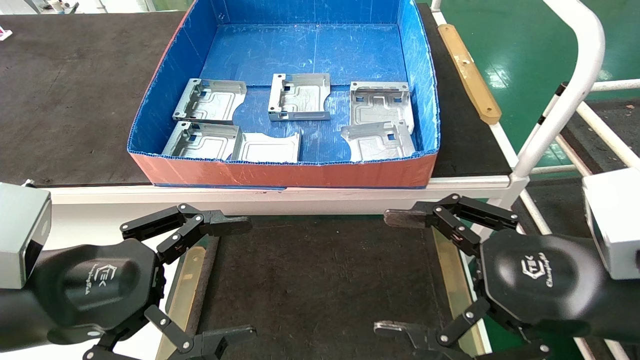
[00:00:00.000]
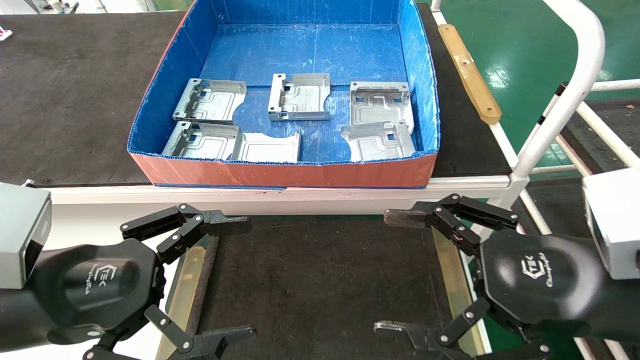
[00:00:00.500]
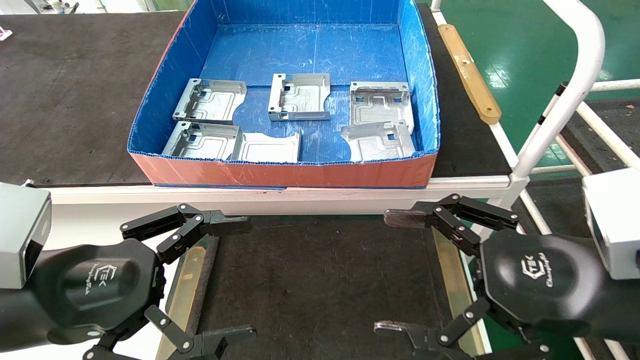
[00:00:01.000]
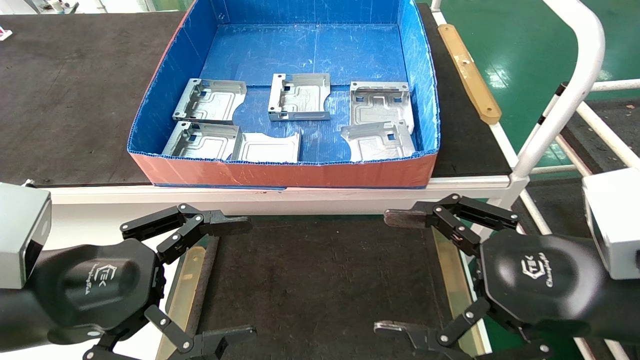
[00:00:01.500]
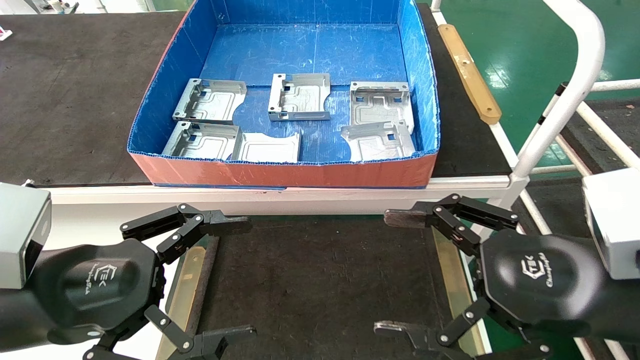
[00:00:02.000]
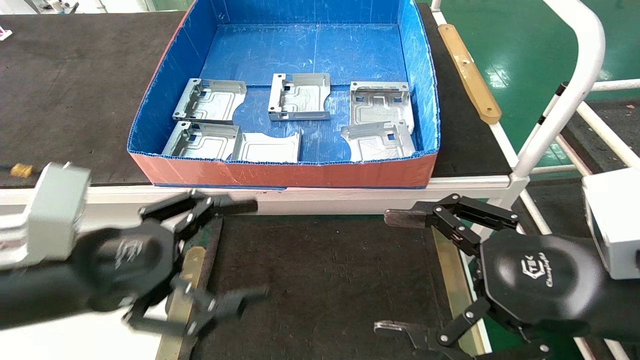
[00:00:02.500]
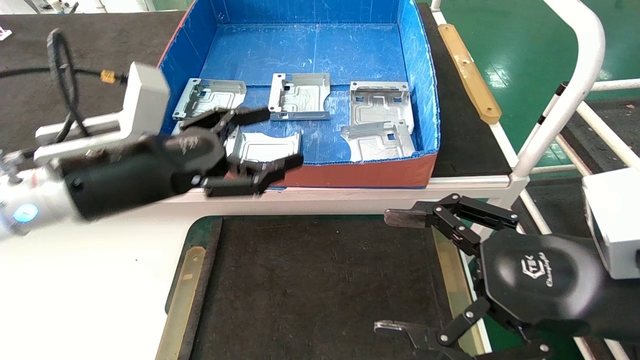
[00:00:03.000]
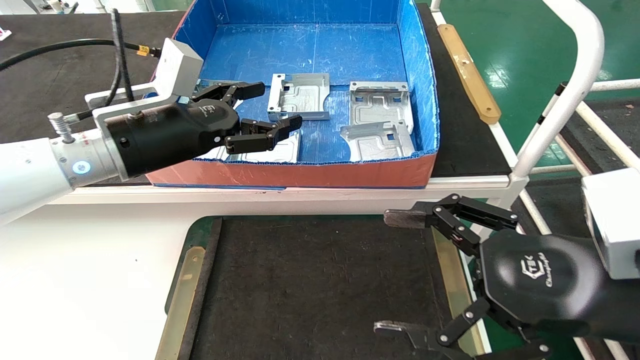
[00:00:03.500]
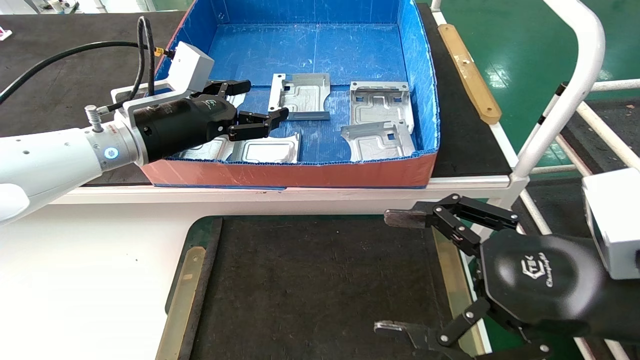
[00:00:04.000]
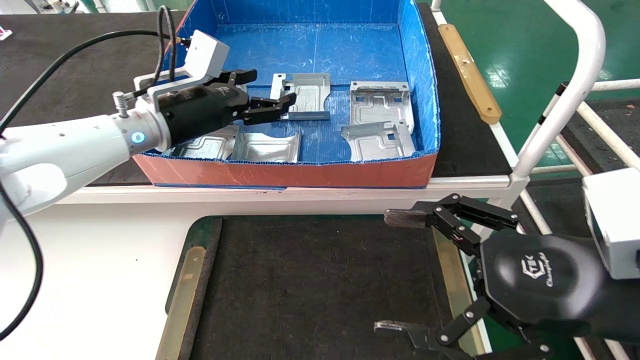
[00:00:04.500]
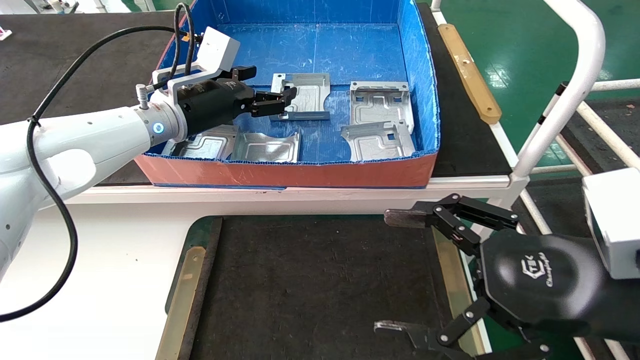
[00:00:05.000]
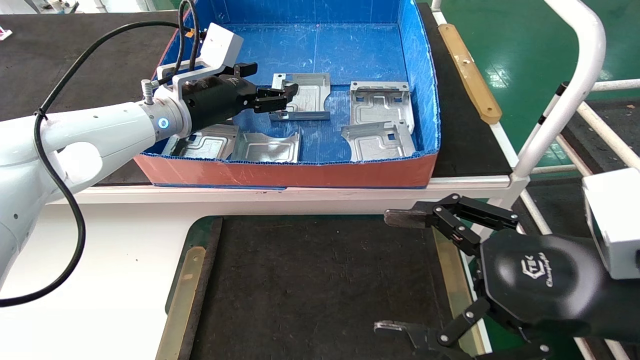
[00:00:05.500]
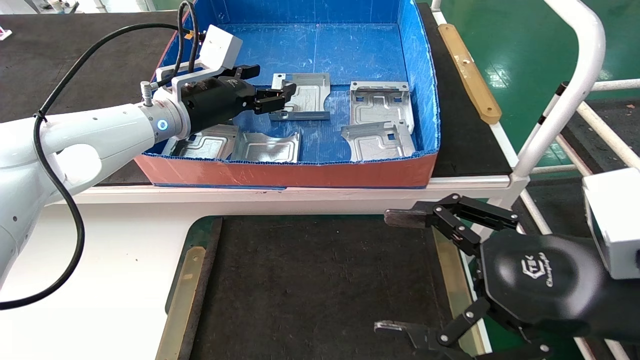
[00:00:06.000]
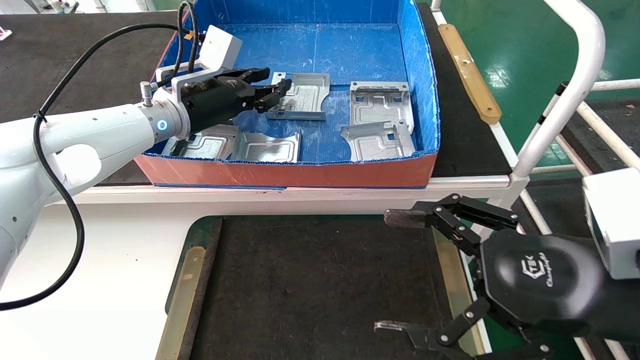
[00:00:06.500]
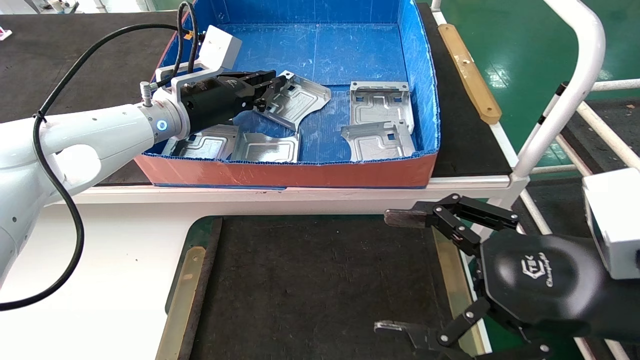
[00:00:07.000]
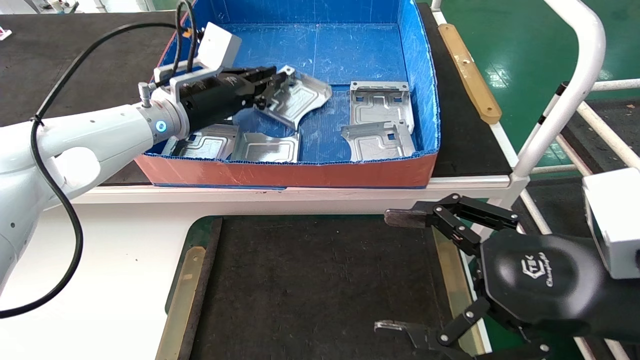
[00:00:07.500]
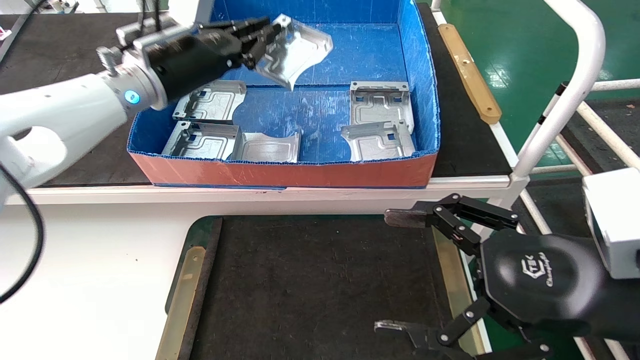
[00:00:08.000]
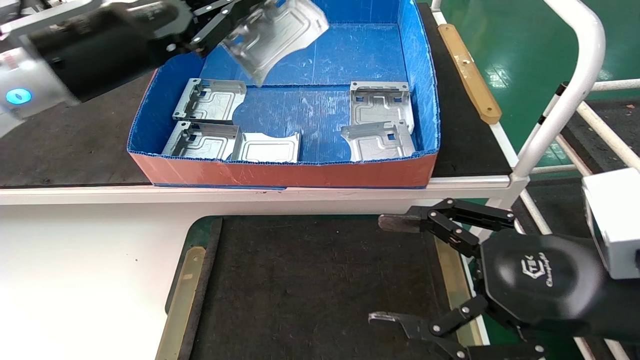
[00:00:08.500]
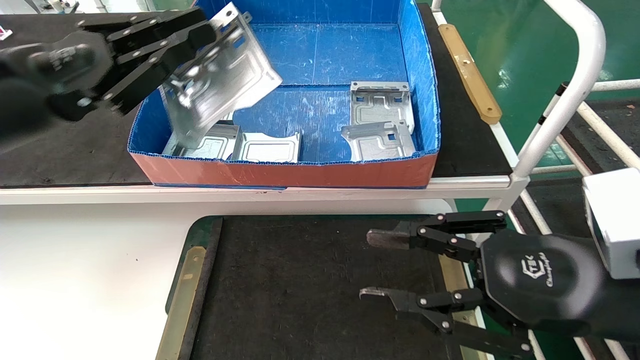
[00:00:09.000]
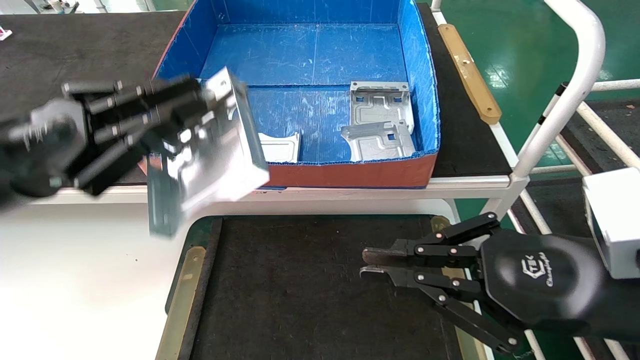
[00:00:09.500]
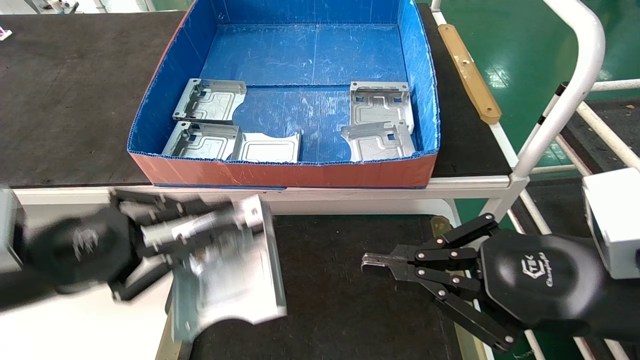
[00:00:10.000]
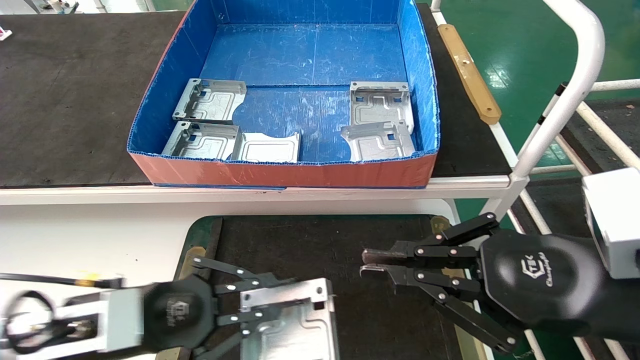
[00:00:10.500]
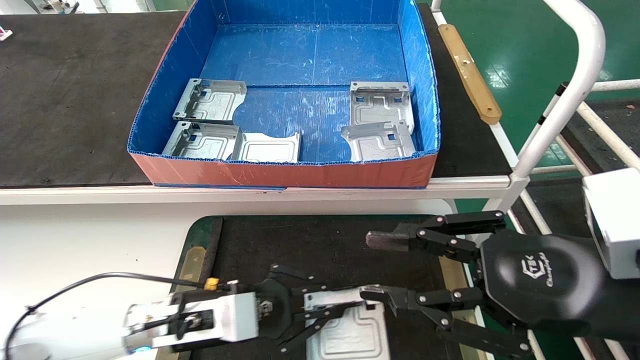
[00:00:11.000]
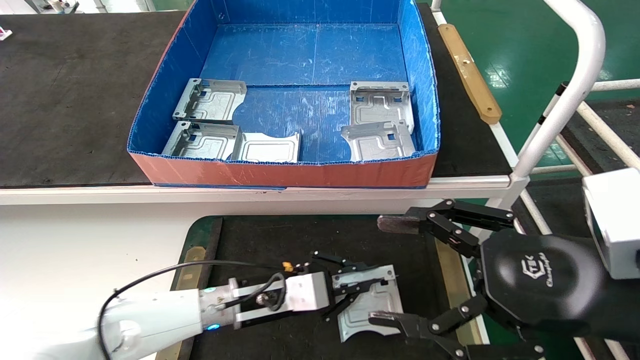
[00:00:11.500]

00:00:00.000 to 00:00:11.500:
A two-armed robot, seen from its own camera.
Task of the whole recording: take the accessories out of the box and place them on the table.
Step, 00:00:03.000 to 00:00:07.000: Pick up the hard drive bracket from the feeding area.
00:00:00.000 to 00:00:02.000: Both grippers stay about where they are.
00:00:02.000 to 00:00:04.000: The left gripper moves forward, some 20 cm.
00:00:04.000 to 00:00:06.000: The left gripper travels forward by roughly 5 cm.
00:00:06.000 to 00:00:07.500: The left gripper closes its fingers.
00:00:07.500 to 00:00:09.500: The right gripper closes up. The left gripper heads backward and to the left, covering roughly 25 cm.
00:00:09.500 to 00:00:11.500: The right gripper opens up, while the left gripper is displaced downward, to the right and forward by some 35 cm.

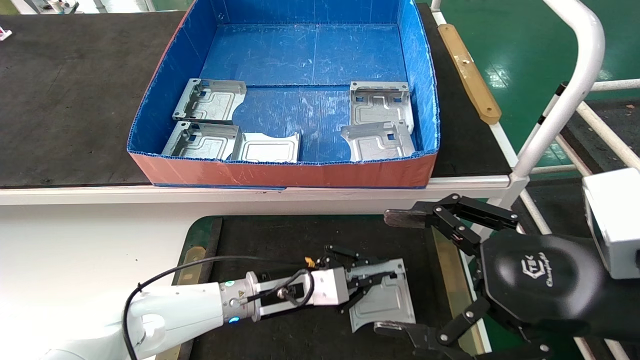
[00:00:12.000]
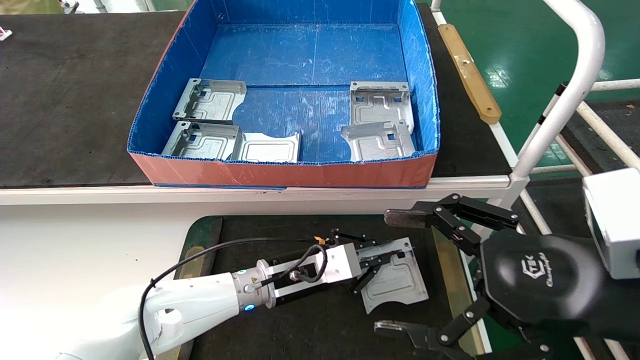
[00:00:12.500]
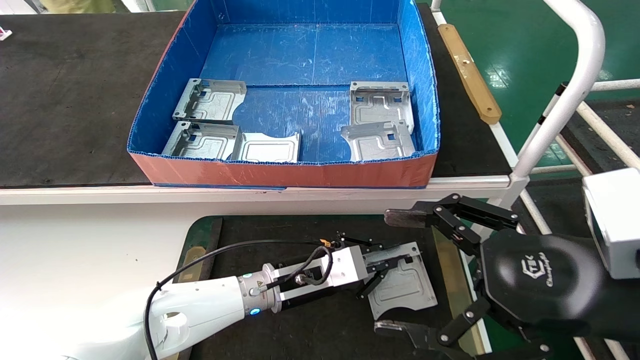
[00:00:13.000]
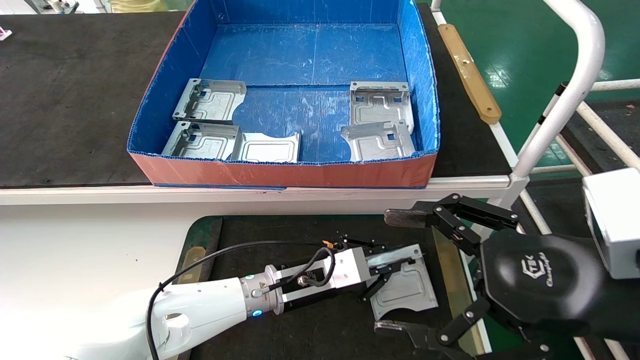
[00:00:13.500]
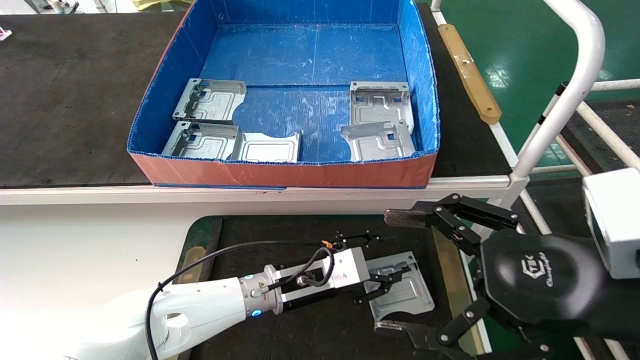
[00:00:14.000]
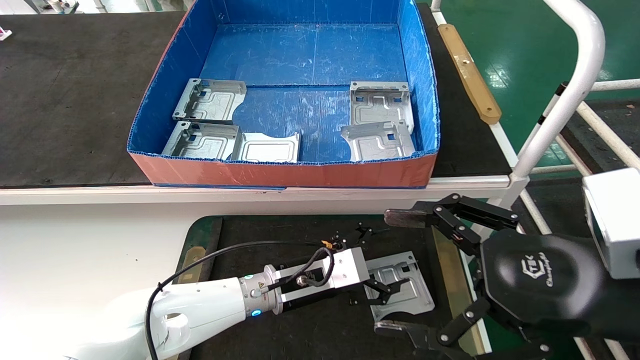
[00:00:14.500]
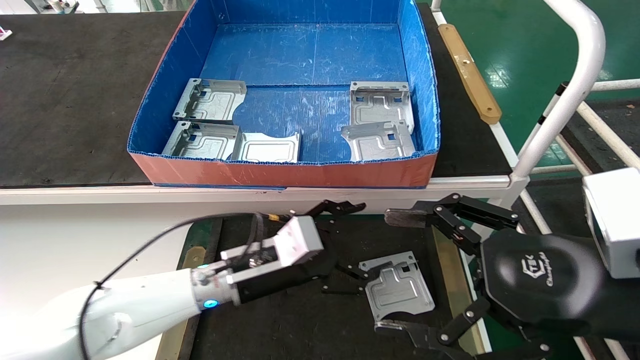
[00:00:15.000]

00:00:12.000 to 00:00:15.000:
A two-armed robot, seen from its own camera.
Task of the whole recording: take the accessories out of the box and place them on the table.
00:00:12.000 to 00:00:13.500: The grippers stay close to where they were, moving slightly.
00:00:13.500 to 00:00:15.000: The left gripper heads to the left, covering approximately 5 cm, and opens its fingers.
